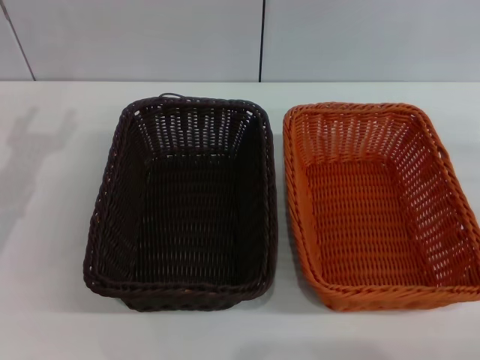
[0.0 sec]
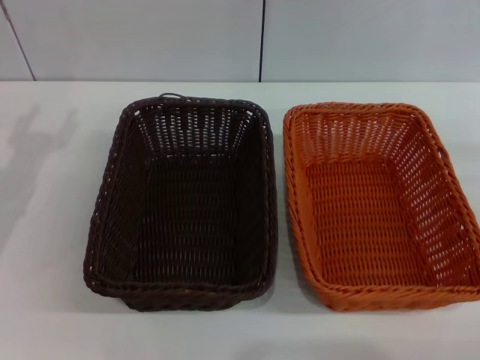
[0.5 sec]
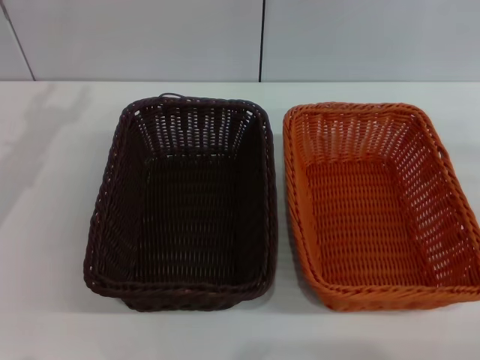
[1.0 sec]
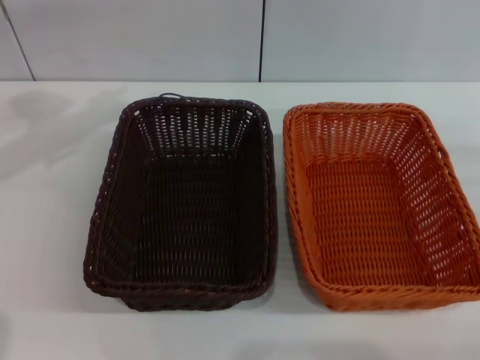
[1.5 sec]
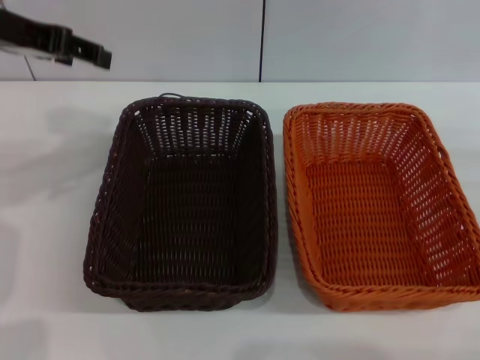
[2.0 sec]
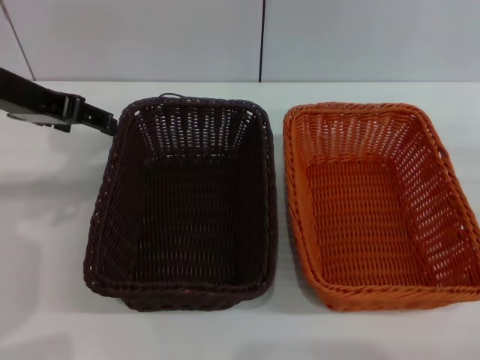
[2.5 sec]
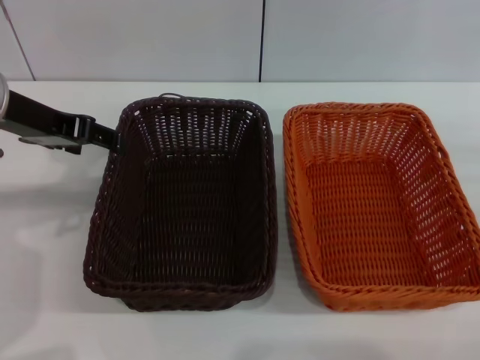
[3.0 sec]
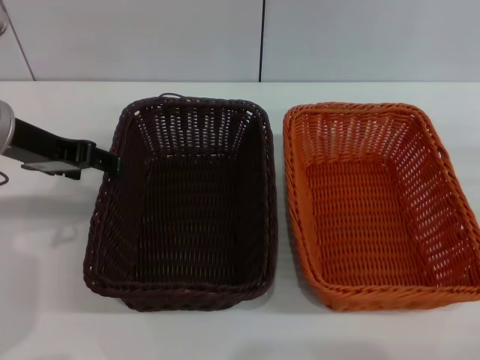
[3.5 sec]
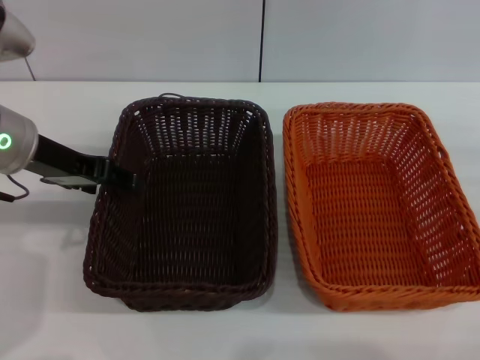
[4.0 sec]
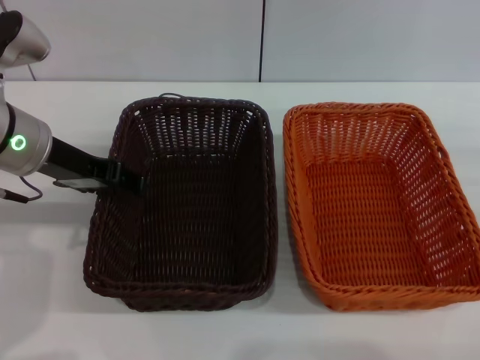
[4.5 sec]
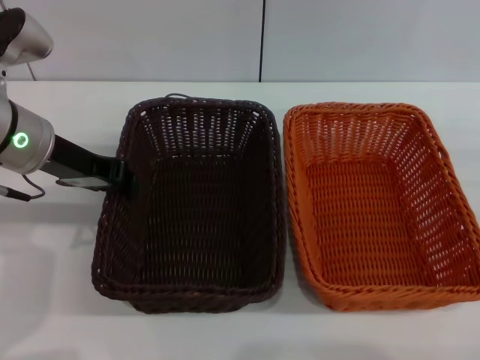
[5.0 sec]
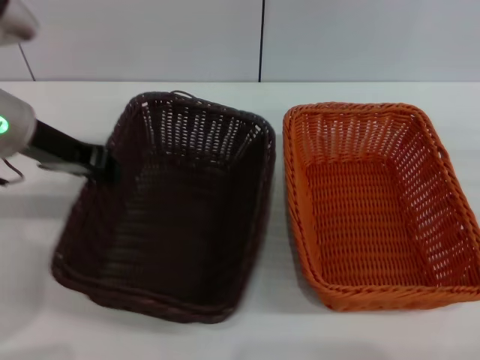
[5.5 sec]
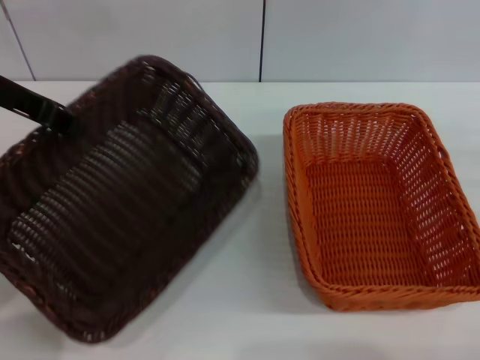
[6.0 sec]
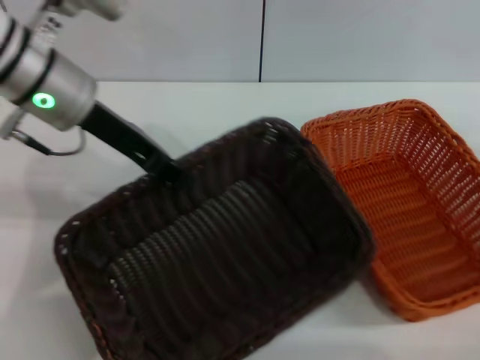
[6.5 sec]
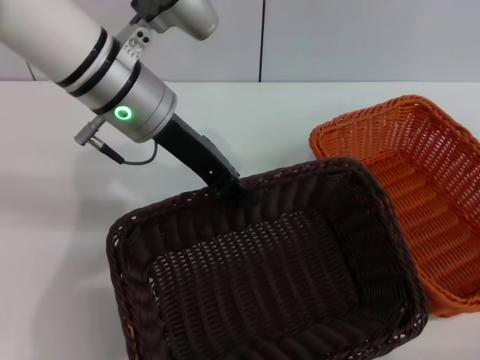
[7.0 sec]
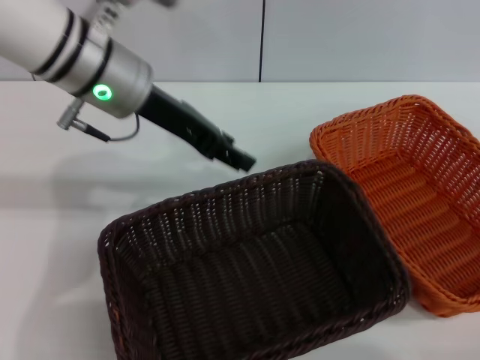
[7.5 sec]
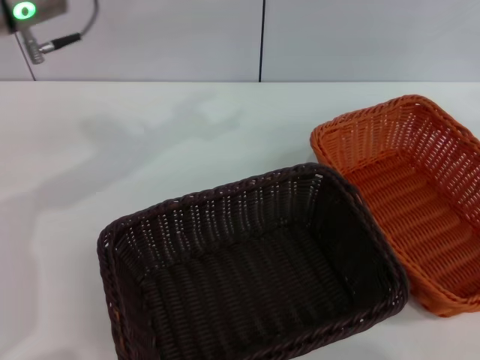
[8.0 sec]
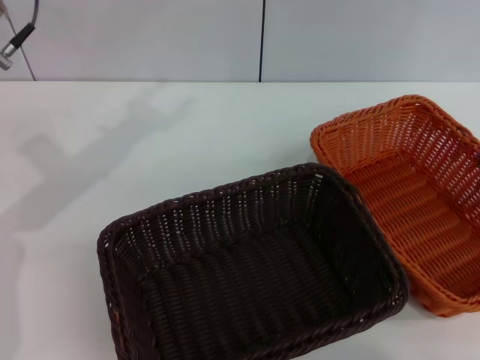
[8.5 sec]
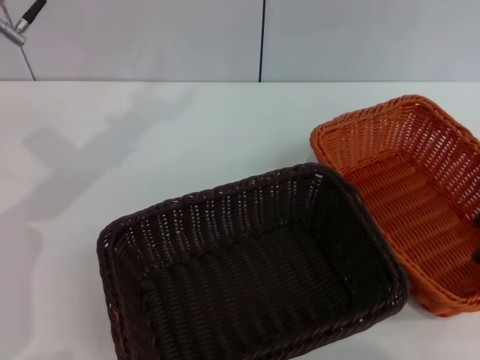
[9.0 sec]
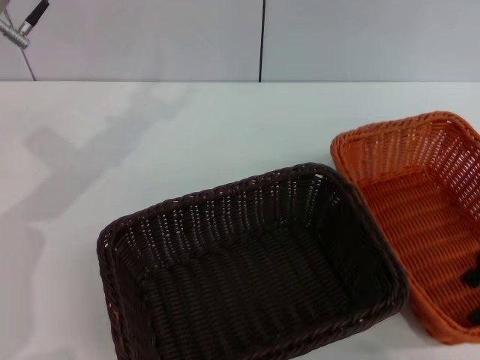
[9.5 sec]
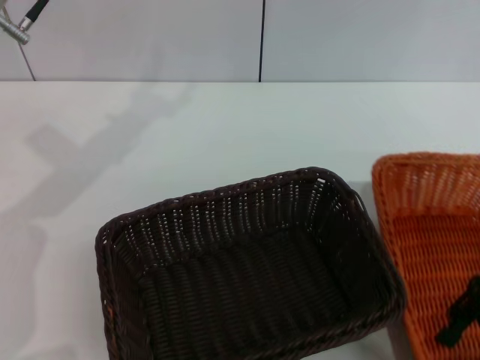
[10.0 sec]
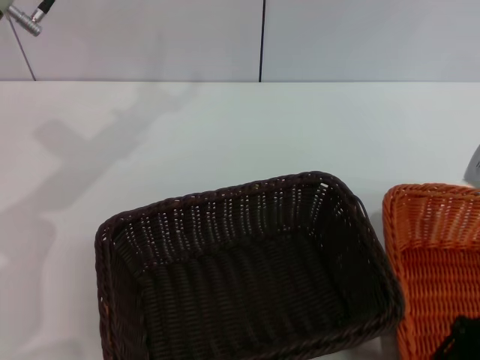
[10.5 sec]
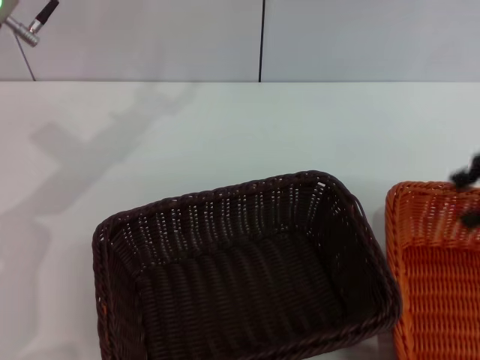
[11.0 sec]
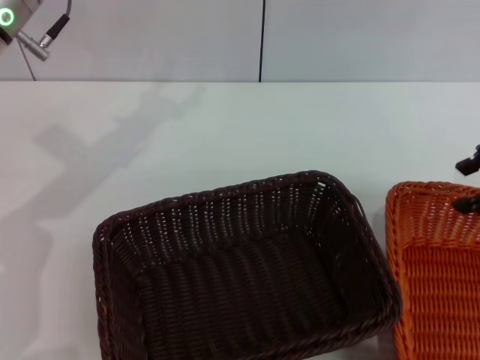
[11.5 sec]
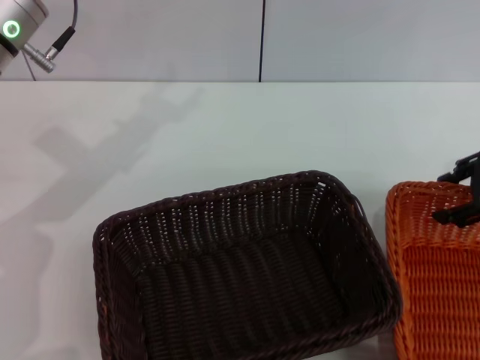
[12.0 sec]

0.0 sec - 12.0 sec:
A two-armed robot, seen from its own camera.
Step, 0.0 sec - 5.5 sec: Pick up the dark basket with the left gripper.
Step, 6.0 sec - 7.5 sec: Place the dark basket in the center of view with the left gripper.
0.0 sec - 2.0 sec: The left gripper travels upward by about 15 cm.
2.0 sec - 4.0 sec: The left gripper is displaced downward by approximately 10 cm.
4.0 sec - 6.0 sec: The left gripper shifts roughly 5 cm upward, and closes up.
6.0 sec - 8.0 sec: The left gripper goes some 5 cm to the right, and opens its fingers. The right gripper moves upward, some 10 cm.
8.0 sec - 10.0 sec: The right gripper shifts about 15 cm to the left and backward.
10.0 sec - 12.0 sec: The right gripper travels forward by about 5 cm, and travels upward and back again, roughly 10 cm each way.

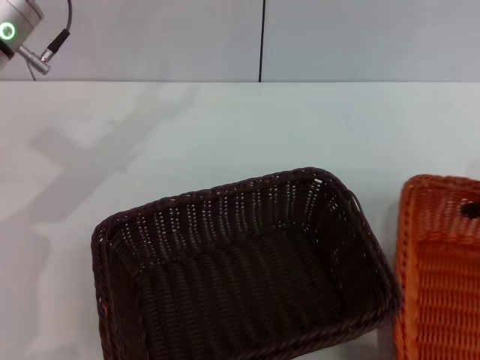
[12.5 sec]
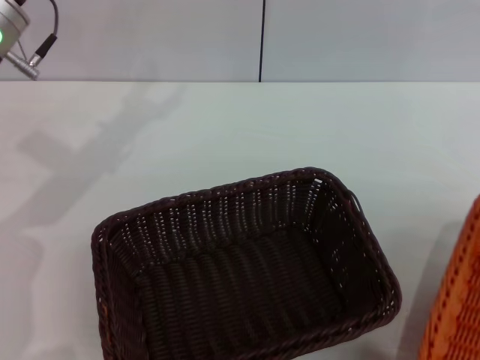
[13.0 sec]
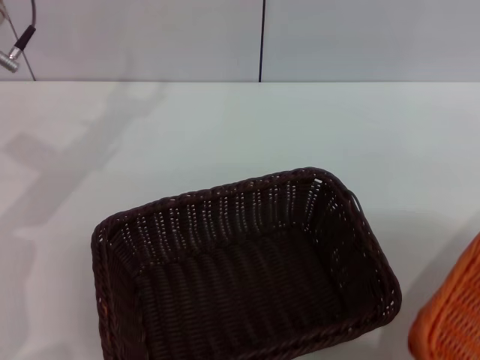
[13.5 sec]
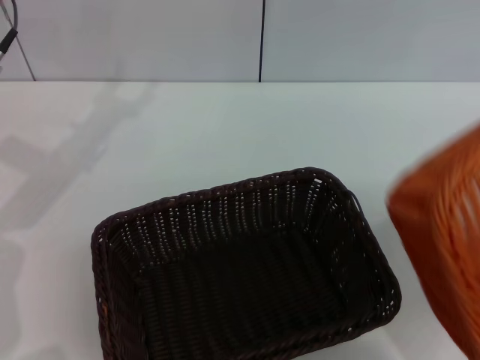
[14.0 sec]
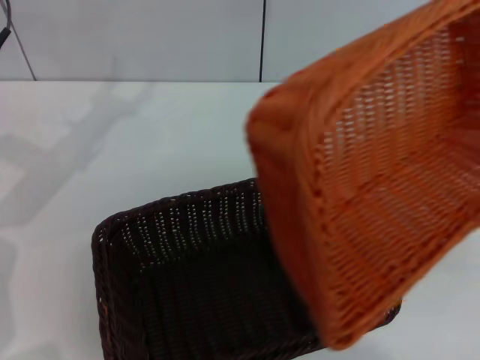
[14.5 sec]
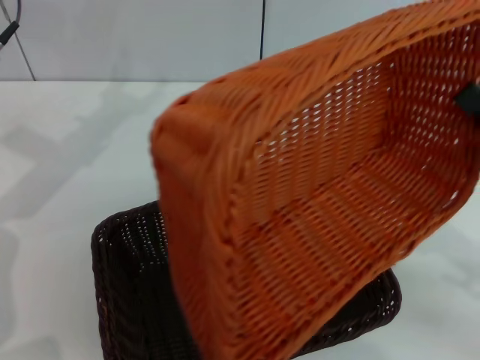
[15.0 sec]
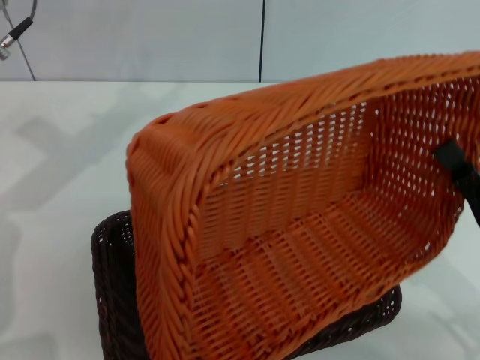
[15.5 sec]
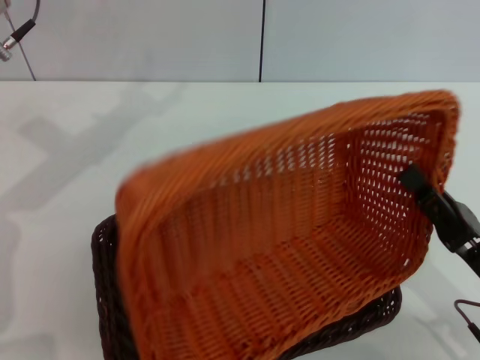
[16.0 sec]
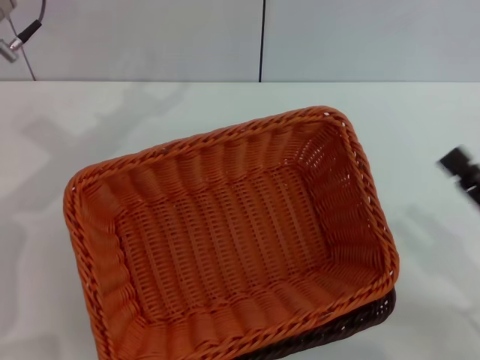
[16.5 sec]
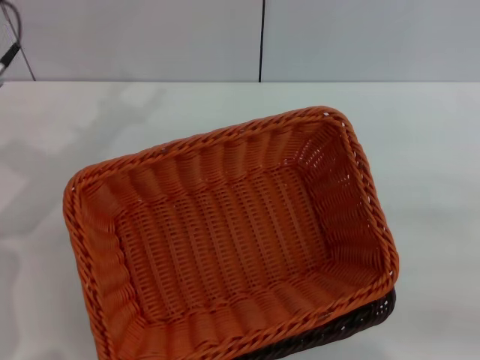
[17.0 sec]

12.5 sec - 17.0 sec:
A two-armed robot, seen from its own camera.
Step, 13.5 sec - 16.0 sec: Place the light basket on the dark basket with the right gripper.
12.5 sec - 14.5 sec: The right gripper moves backward, roughly 10 cm, travels to the right and back again, roughly 15 cm each way, and closes up.
14.5 sec - 17.0 sec: The right gripper is displaced downward by roughly 5 cm, goes to the left and returns, some 10 cm each way, and opens up.
